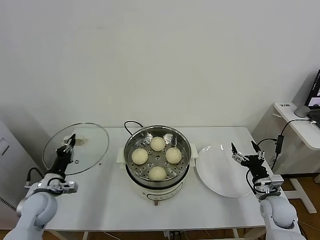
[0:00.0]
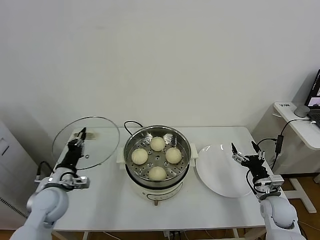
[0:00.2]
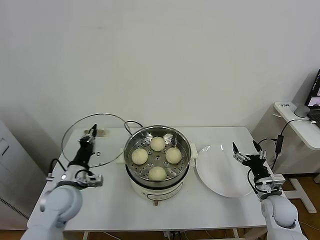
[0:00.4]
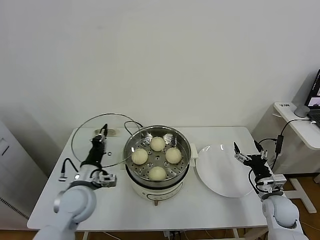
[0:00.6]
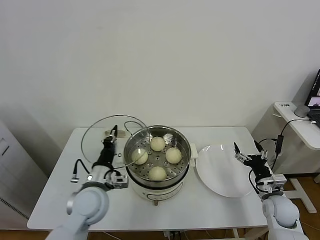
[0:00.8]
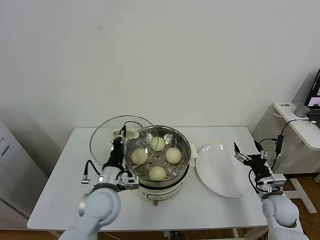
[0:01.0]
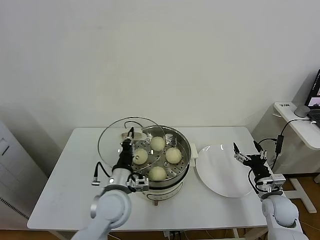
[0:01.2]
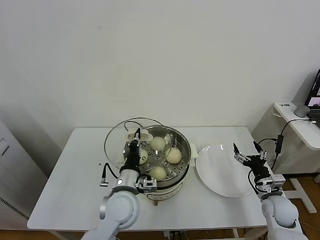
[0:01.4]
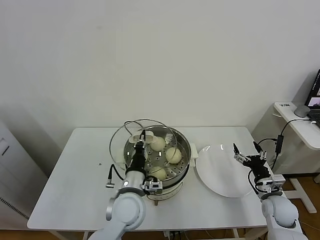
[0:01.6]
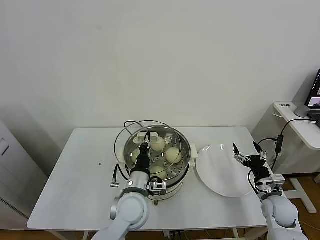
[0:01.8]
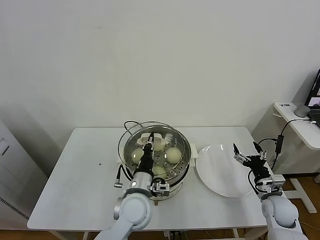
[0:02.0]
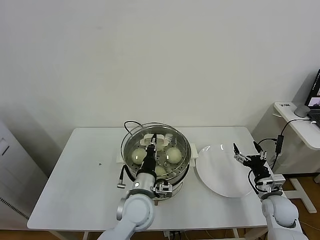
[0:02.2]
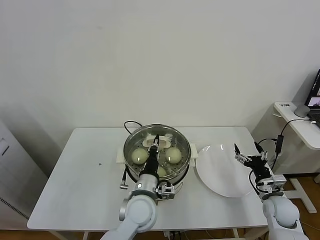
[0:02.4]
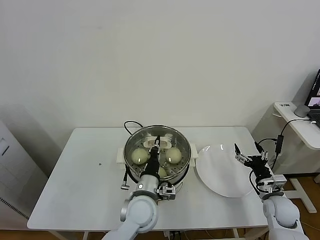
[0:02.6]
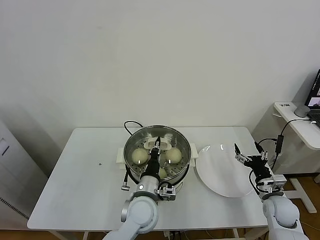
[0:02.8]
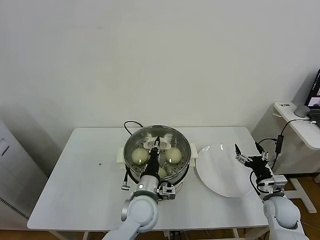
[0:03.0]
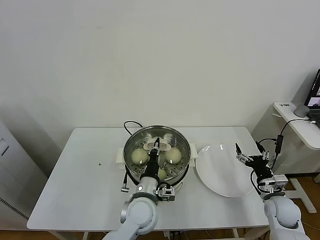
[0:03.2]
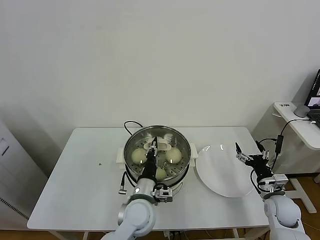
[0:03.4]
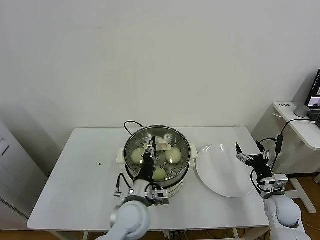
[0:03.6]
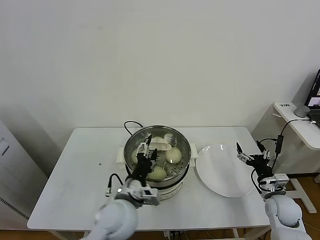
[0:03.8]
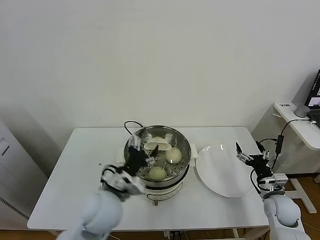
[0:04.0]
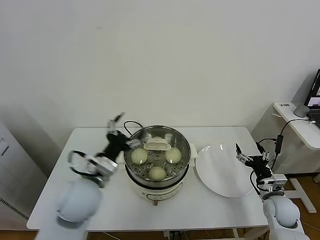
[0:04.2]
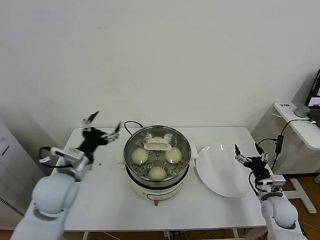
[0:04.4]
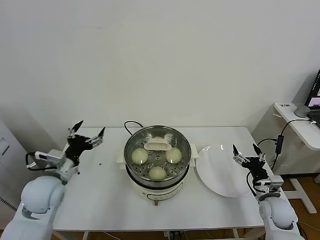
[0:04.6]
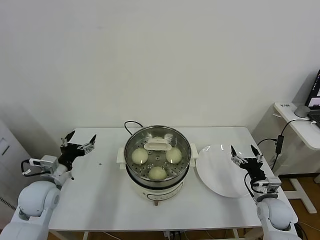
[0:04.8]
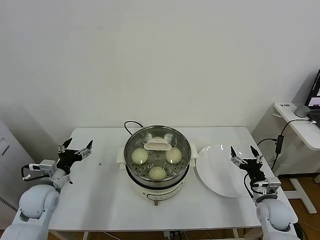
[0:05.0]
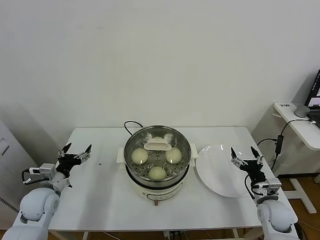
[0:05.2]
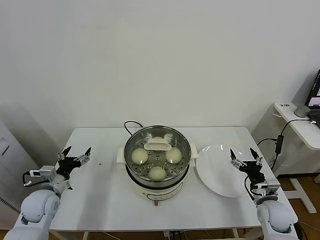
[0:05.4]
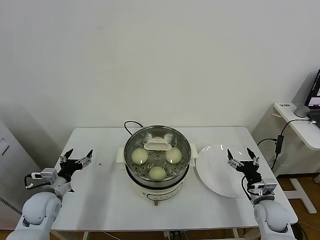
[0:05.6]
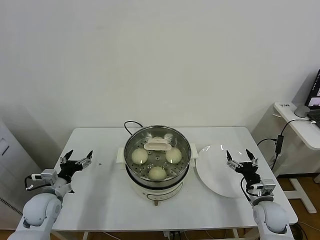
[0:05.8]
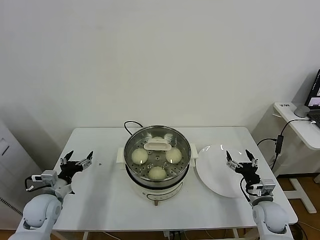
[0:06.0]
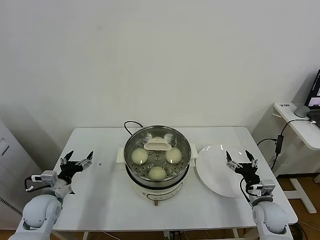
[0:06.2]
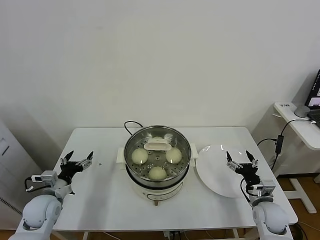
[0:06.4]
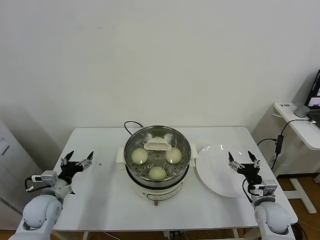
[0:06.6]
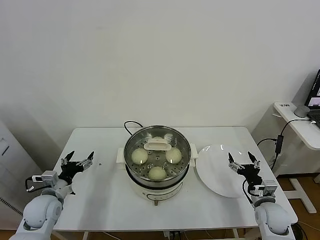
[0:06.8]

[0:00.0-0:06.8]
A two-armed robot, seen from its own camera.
Task of the whole recording: take steamed baozi put them in steamer.
Step, 0:00.0 to 0:04.2: Place the pot lid on the steamer with left gripper.
0:00.0 to 0:01.4: The left gripper travels to the right by roughly 30 cm.
0:01.4 to 0:02.8: The left gripper shifts roughly 5 cm to the right.
0:02.8 to 0:04.0: The left gripper goes some 10 cm to the left and upward, and opens up.
0:04.0 to 0:05.4: The left gripper travels to the left by approximately 25 cm.
0:05.4 to 0:06.8: The grippers stay close to where they were, moving slightly.

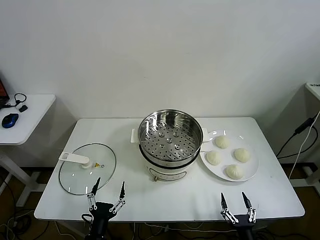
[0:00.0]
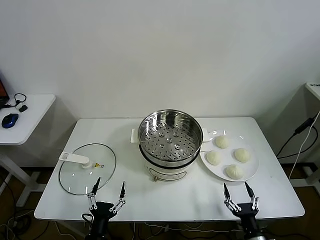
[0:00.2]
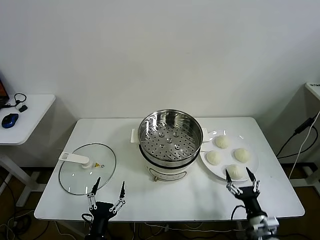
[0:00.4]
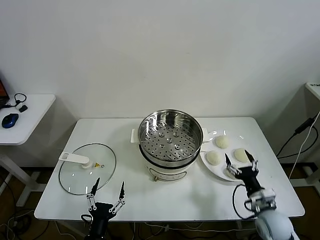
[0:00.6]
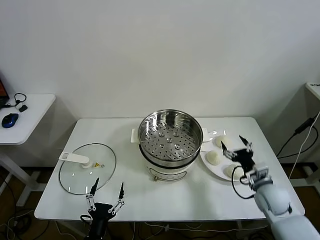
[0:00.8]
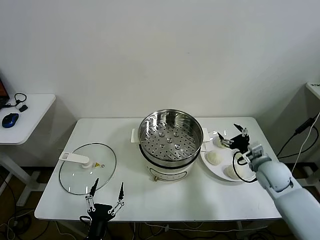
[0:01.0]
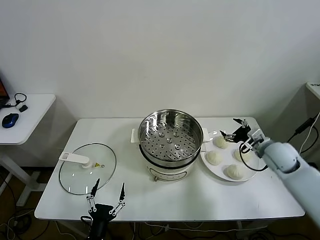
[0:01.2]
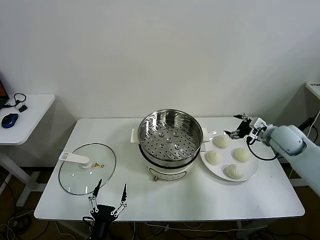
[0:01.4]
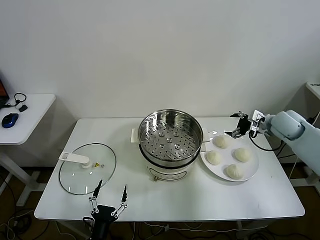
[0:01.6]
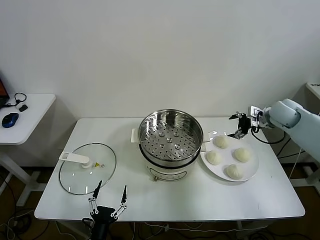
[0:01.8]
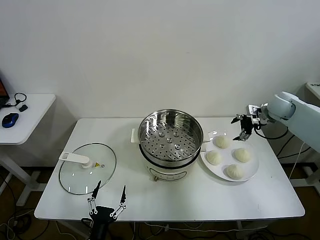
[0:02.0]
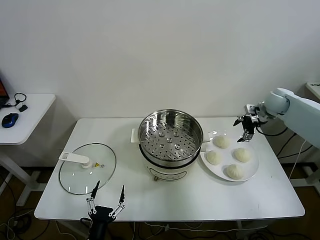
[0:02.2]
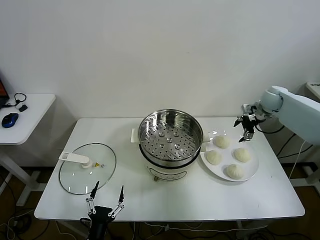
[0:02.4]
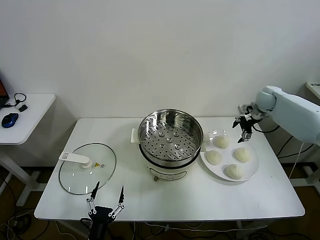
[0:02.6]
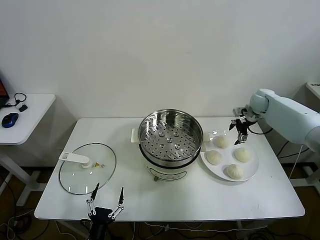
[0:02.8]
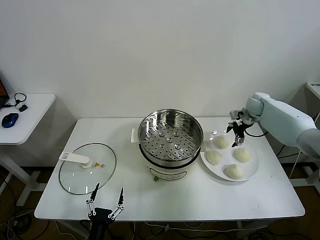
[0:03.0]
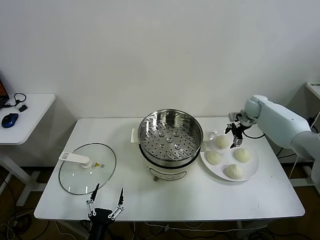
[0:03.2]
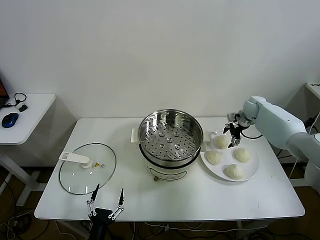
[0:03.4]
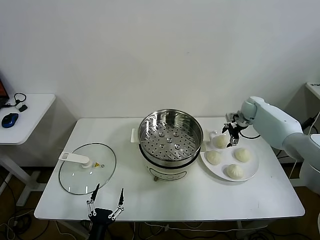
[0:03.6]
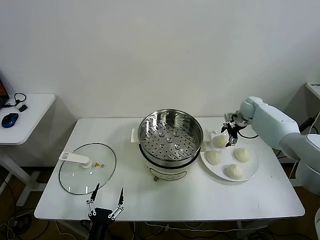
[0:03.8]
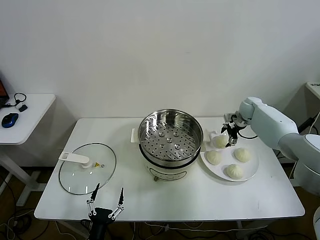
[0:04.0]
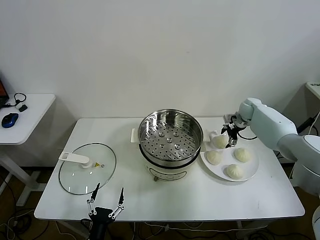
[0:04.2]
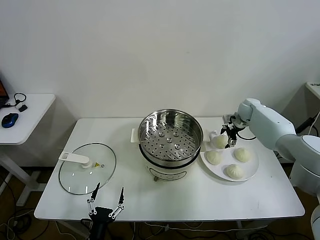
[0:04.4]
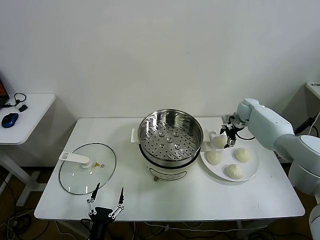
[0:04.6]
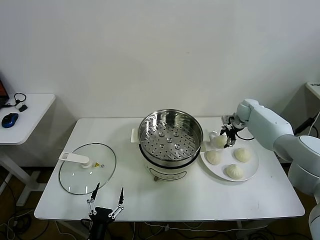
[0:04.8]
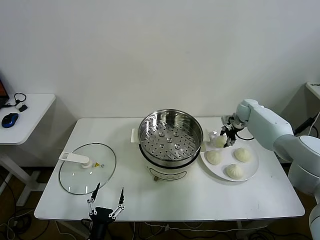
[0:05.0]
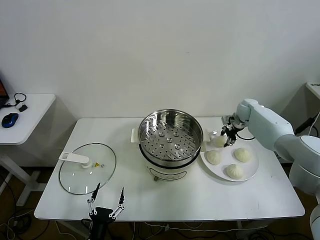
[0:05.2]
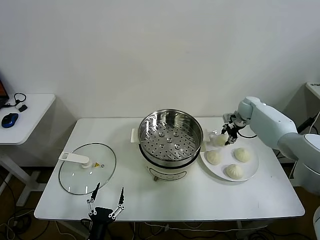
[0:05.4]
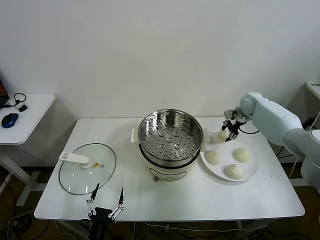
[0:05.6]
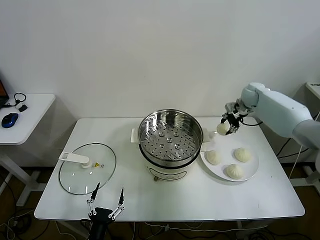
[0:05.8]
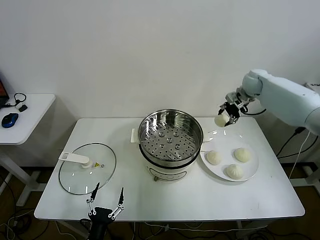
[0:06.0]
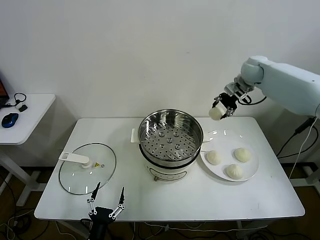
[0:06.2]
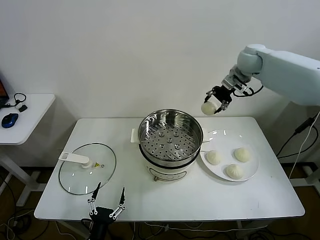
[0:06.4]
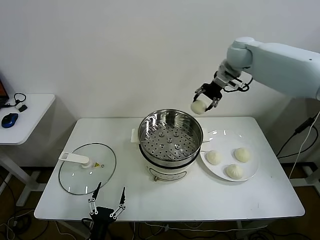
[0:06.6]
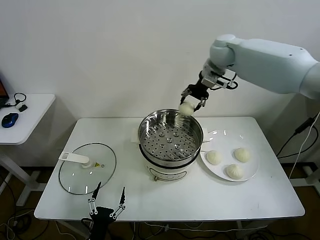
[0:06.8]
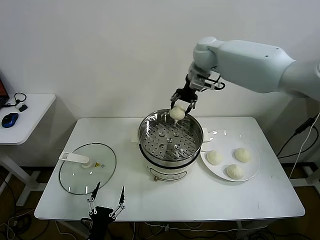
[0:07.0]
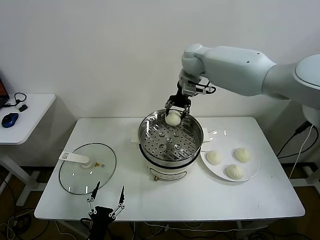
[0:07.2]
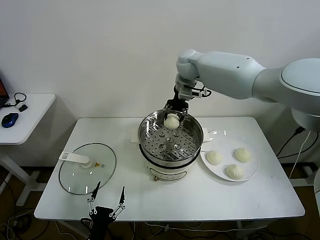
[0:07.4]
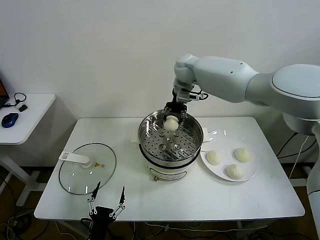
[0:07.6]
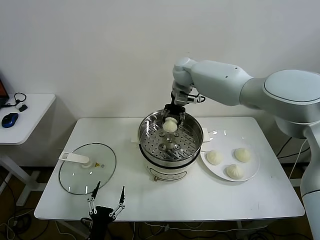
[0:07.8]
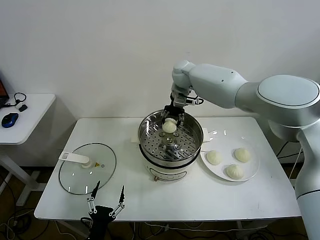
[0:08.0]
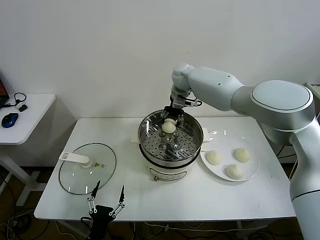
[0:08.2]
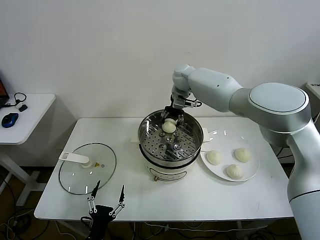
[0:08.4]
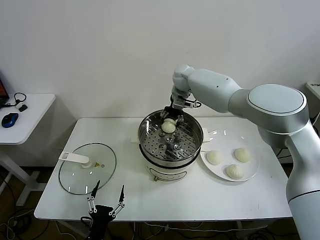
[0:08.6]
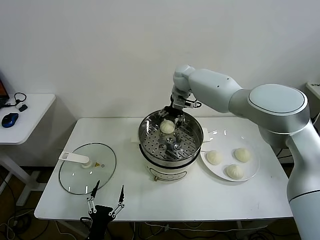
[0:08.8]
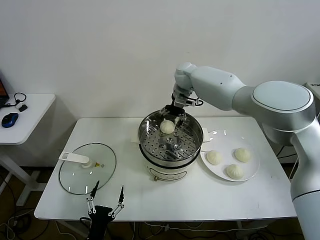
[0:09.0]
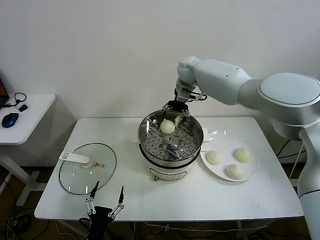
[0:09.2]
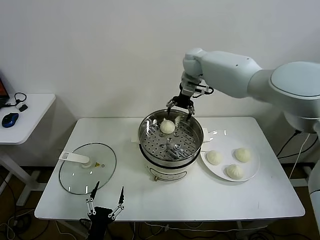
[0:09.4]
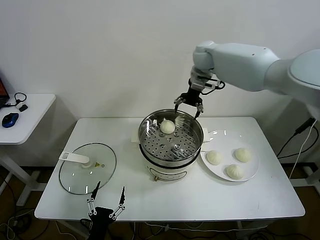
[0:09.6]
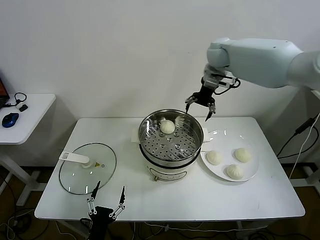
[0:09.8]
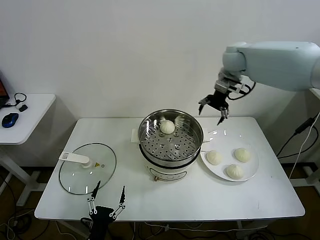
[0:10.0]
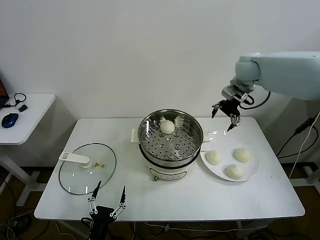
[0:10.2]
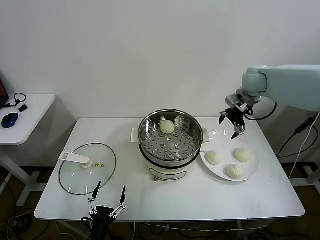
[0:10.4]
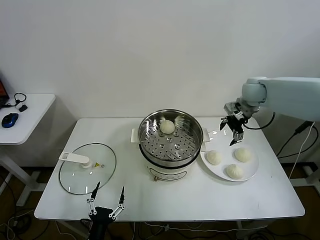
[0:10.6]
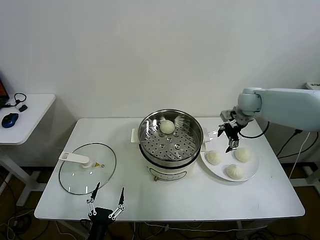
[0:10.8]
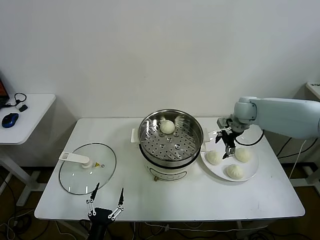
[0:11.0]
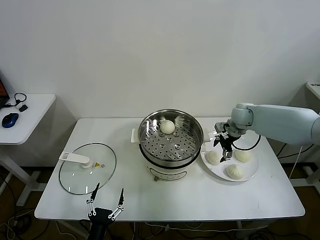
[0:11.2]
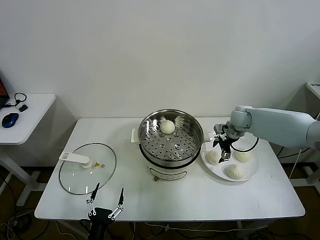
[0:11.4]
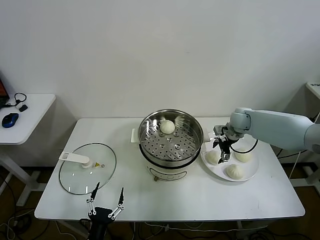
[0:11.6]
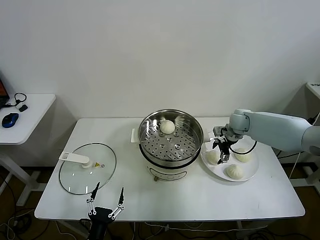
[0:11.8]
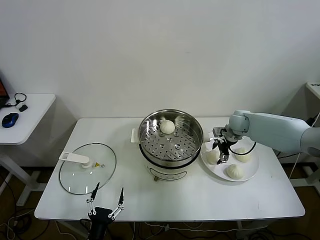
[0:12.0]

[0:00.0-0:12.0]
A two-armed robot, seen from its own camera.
Task of the whole recording: take steamed baozi put them in steamer.
Step, 0:00.0 to 0:05.0: Grasp the baozi in the plate with right gripper.
Step, 0:05.4 to 0:09.0: Place the baozi on the steamer with right gripper.
0:01.6 to 0:03.0: The right gripper heads forward and downward, covering about 15 cm.
0:03.0 to 0:04.4: The grippers move only a little.
0:04.4 to 0:06.0: The right gripper heads upward, covering about 20 cm, and closes its fingers.
0:06.0 to 0:07.6: The right gripper travels to the left by approximately 25 cm.
0:07.6 to 0:09.0: The right gripper opens its fingers.
0:09.0 to 0:10.4: The right gripper travels to the right by roughly 20 cm.
0:10.4 to 0:12.0: The right gripper goes approximately 15 cm downward.

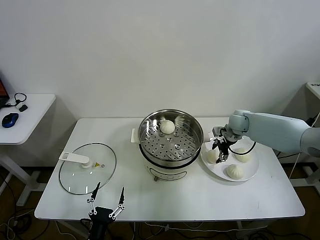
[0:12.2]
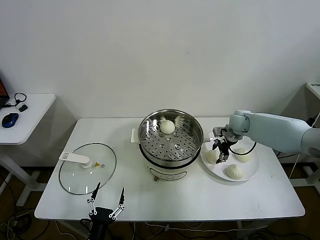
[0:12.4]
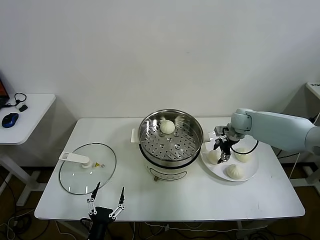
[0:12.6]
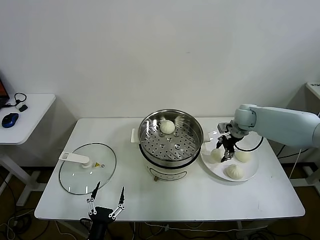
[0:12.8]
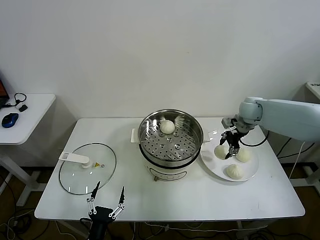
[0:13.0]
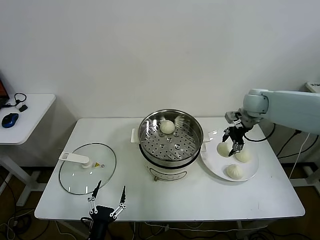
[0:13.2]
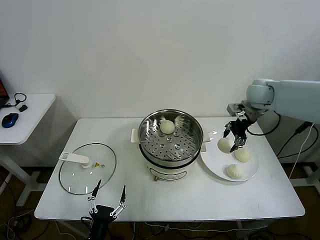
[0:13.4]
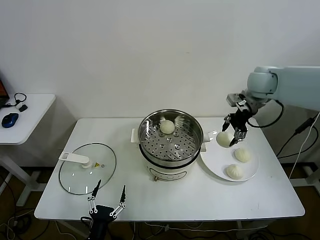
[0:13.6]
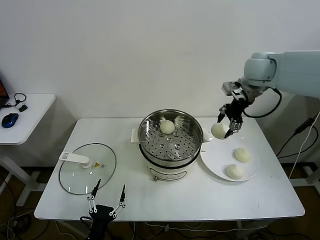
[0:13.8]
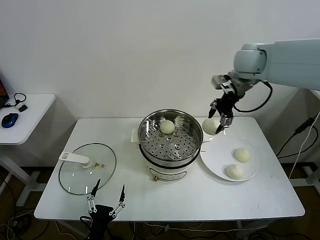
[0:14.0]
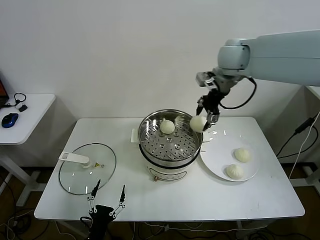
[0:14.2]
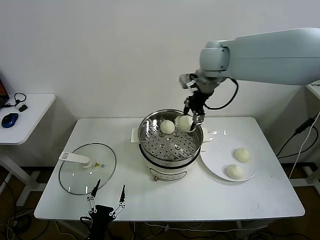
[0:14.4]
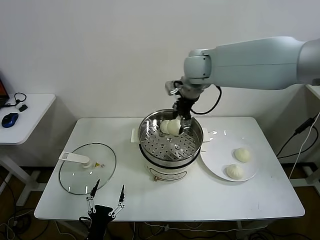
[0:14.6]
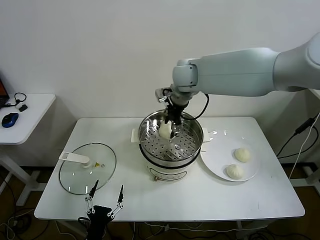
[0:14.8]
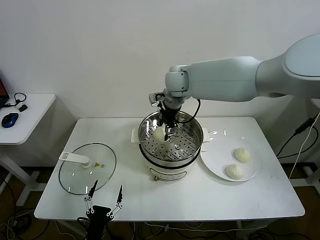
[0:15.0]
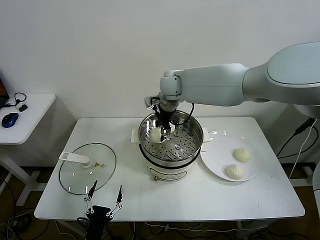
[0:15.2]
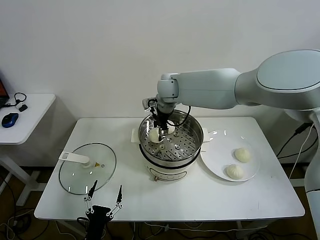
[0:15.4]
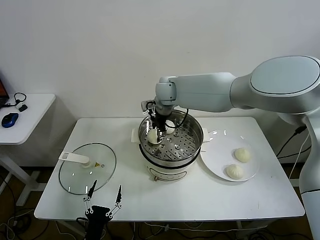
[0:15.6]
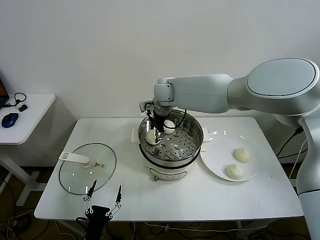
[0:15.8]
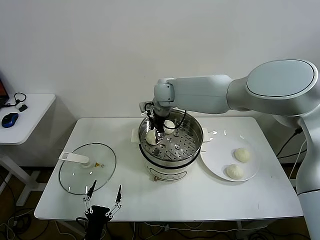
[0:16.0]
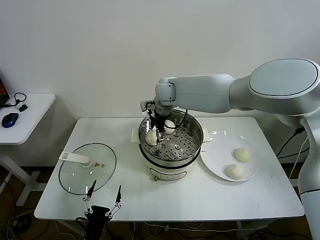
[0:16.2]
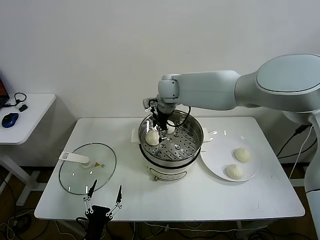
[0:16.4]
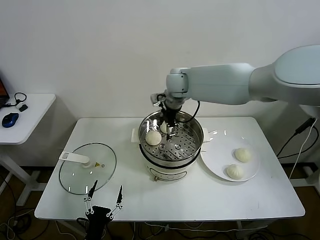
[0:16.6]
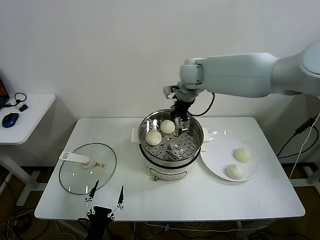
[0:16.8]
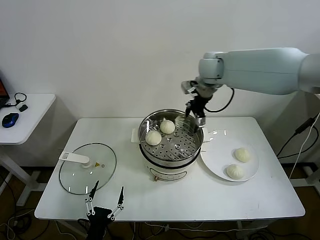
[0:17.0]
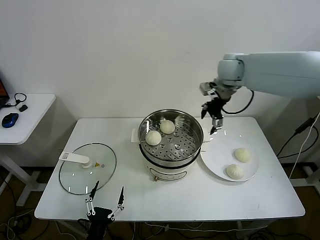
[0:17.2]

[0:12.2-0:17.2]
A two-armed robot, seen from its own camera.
Task of the whole recording: take steamed baozi put them in steamer.
Step, 0:12.8 to 0:16.2: Place the baozi on the steamer with right gripper.
0:12.2 to 0:13.8: The right gripper heads upward, covering approximately 25 cm.
0:13.8 to 0:15.6: The right gripper travels to the left and downward by some 30 cm.
0:15.6 to 0:17.2: The right gripper heads to the right, covering roughly 20 cm, and opens its fingers.
